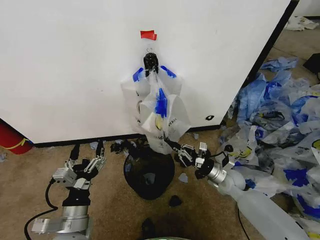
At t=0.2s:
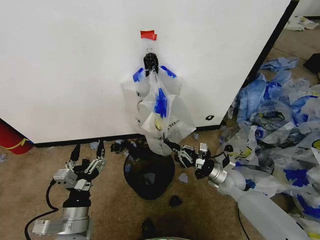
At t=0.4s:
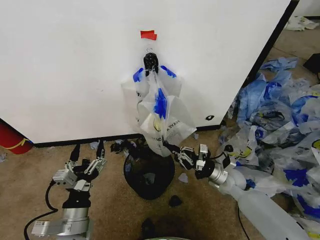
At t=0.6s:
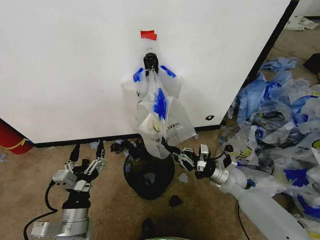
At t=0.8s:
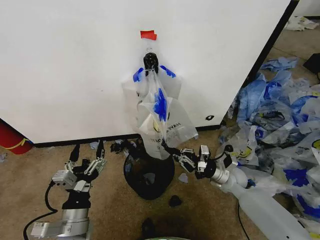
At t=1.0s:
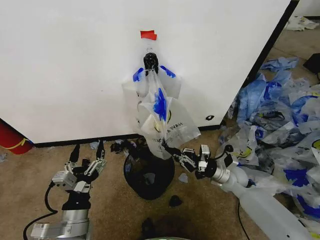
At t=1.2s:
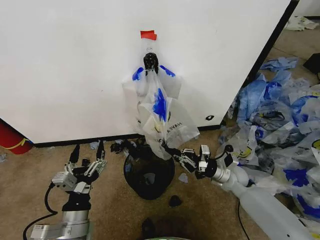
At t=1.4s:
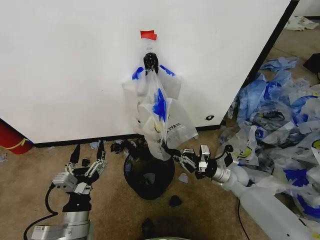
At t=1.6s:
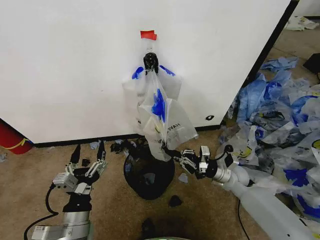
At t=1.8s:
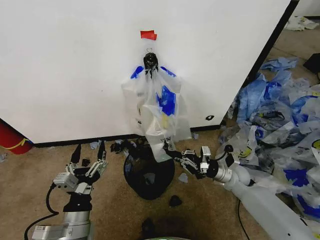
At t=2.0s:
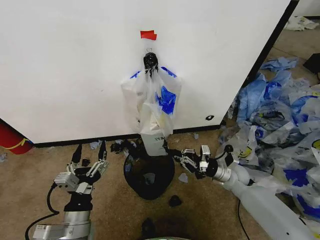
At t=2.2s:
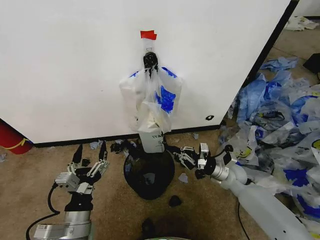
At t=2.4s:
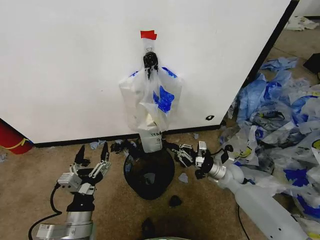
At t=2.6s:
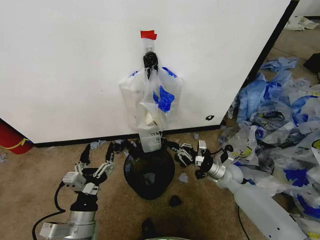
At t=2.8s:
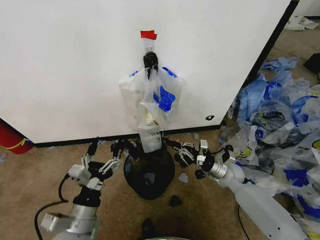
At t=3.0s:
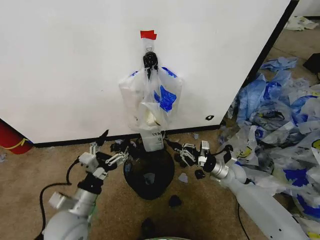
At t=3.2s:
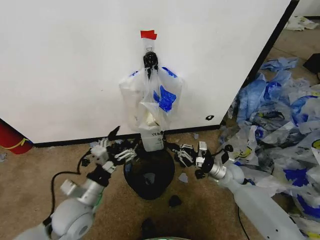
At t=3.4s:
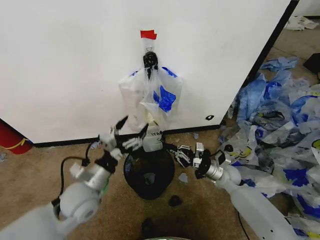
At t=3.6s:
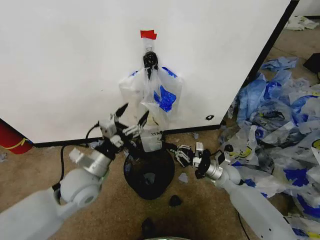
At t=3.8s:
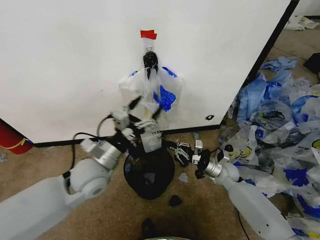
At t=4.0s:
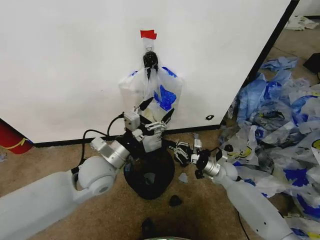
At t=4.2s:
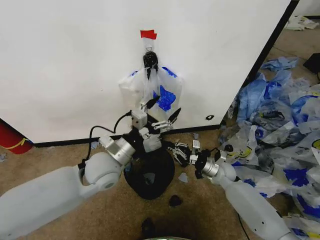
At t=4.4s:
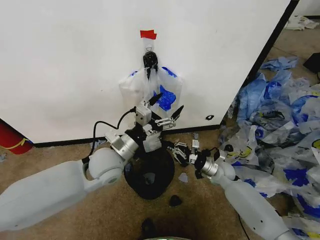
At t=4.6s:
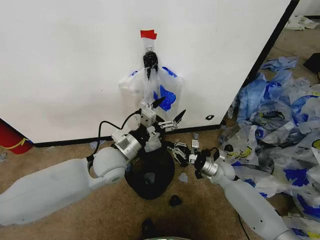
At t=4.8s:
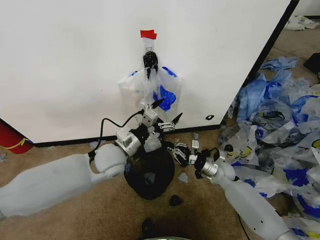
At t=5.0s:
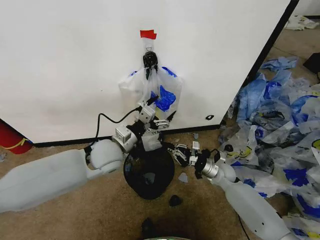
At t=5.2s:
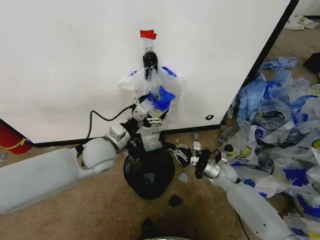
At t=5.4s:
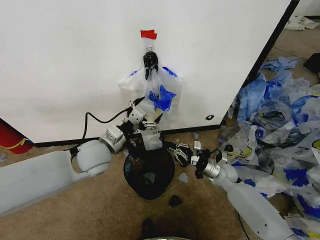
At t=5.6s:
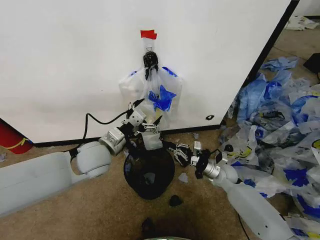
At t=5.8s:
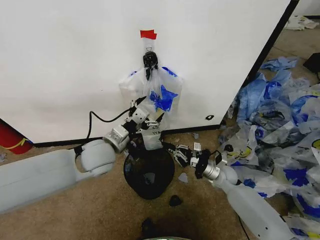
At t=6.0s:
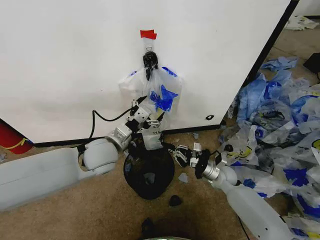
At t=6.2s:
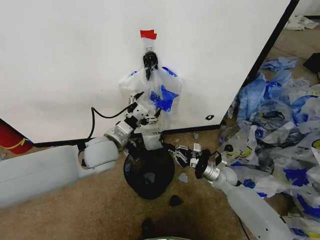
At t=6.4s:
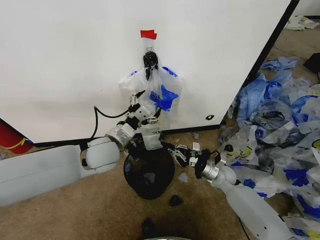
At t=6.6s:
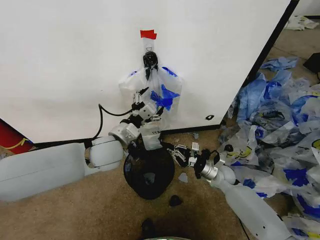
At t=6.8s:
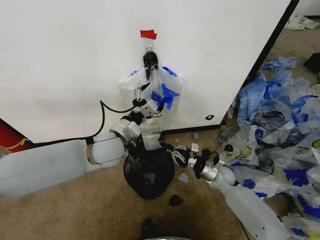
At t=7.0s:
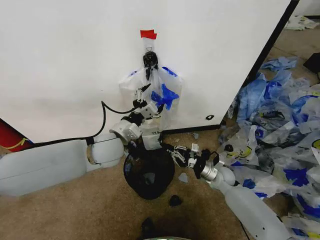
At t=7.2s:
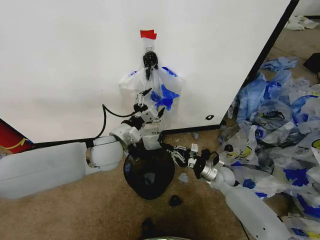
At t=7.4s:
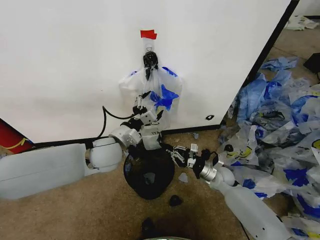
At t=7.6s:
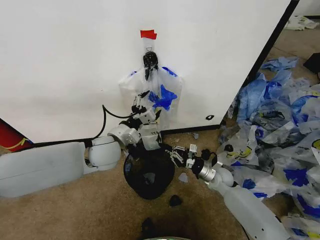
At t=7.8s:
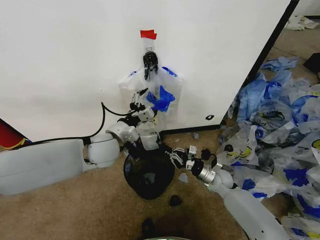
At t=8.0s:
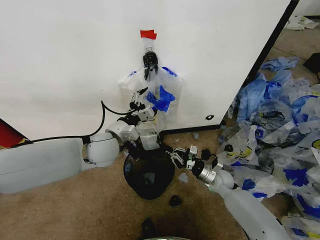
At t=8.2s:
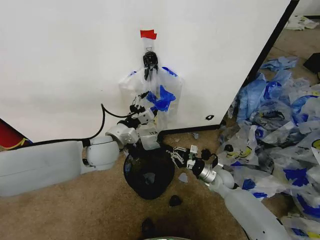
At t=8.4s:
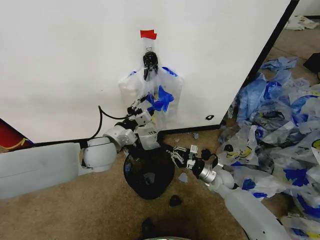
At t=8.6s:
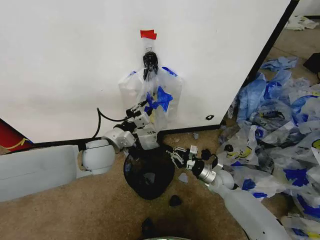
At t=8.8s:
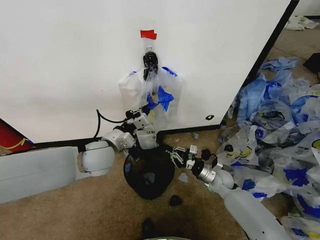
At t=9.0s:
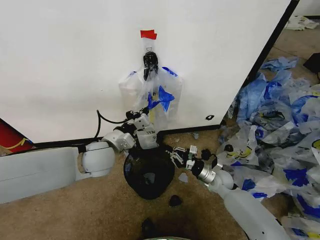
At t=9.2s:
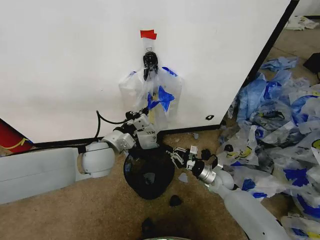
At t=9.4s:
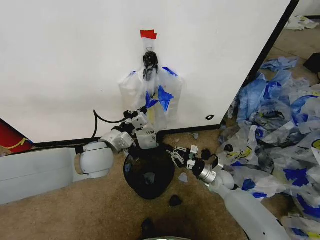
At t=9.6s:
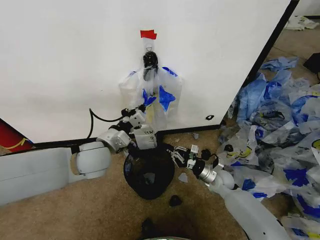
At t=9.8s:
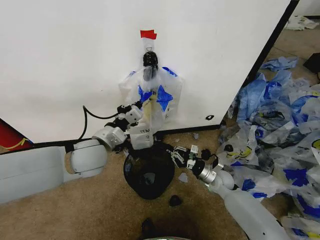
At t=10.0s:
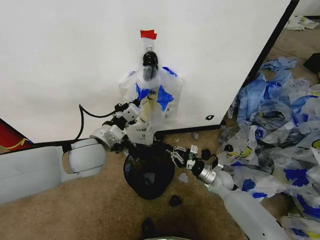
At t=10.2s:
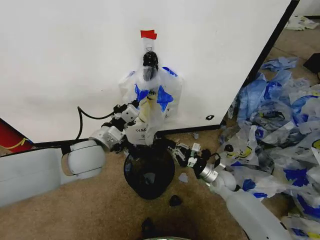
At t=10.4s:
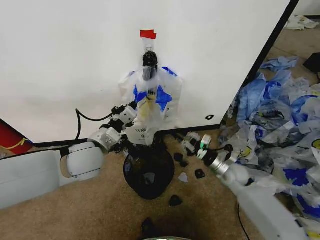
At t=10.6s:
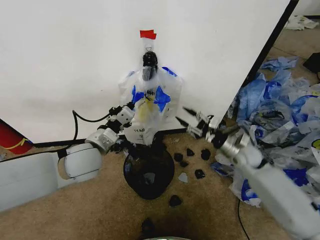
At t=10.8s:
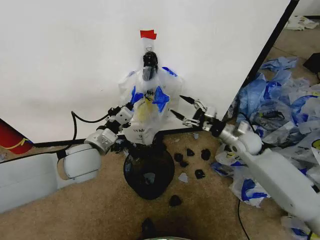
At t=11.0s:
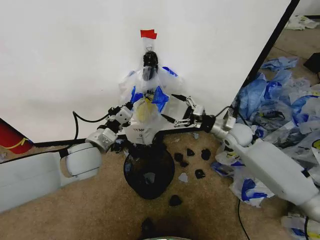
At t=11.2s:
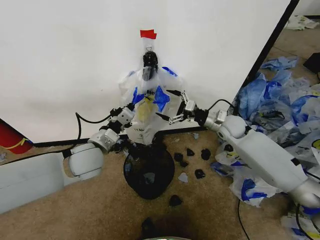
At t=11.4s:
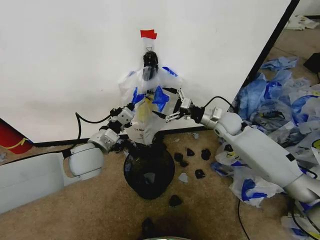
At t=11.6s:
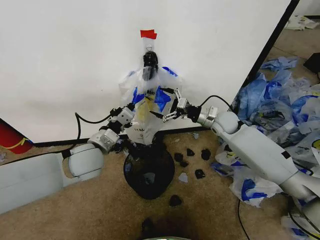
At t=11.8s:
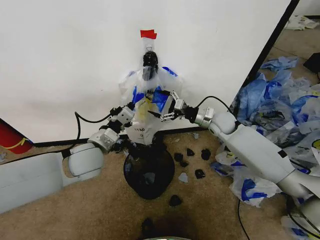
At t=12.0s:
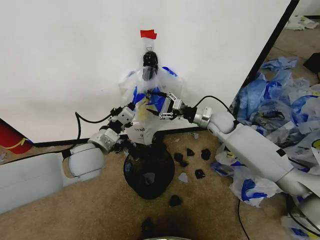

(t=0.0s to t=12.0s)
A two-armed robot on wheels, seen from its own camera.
Task of the whole recording: Pick up the garbage bag from the wall and place it over the trash bin.
t=0.0s - t=3.0s: The grippers make only small movements.
t=3.0s - t=4.4s: The left gripper shifts approximately 20 cm forward, upward and to the right.
t=7.6s - t=9.0s: The left gripper closes up.
t=9.0s - t=10.4s: The right gripper shifts about 5 cm upward.
t=10.4s - t=12.0s: The right gripper goes approximately 20 cm upward, forward and to the left, and opens its fingers.

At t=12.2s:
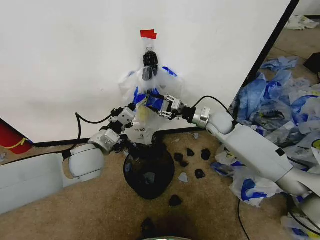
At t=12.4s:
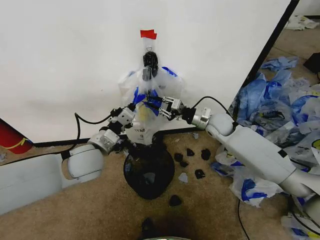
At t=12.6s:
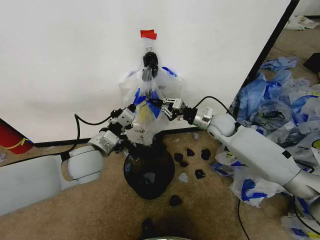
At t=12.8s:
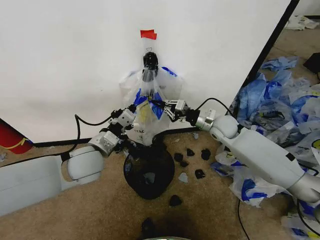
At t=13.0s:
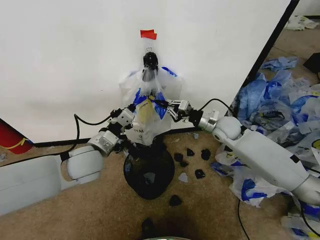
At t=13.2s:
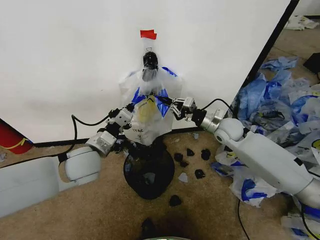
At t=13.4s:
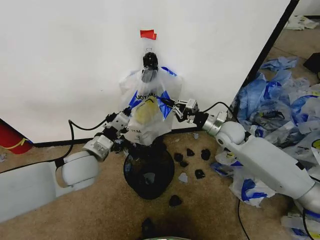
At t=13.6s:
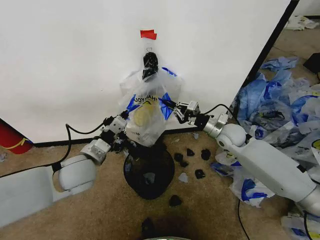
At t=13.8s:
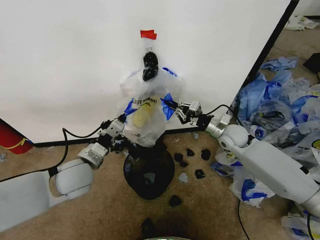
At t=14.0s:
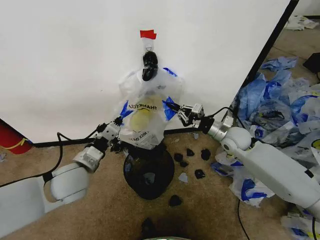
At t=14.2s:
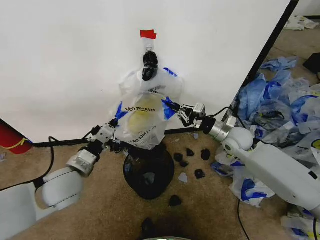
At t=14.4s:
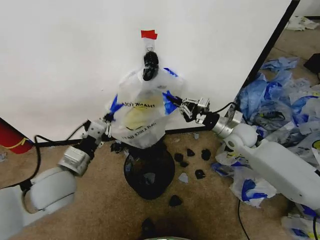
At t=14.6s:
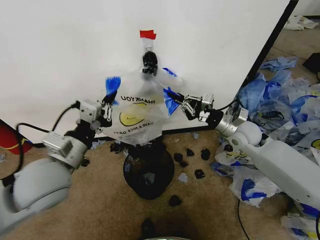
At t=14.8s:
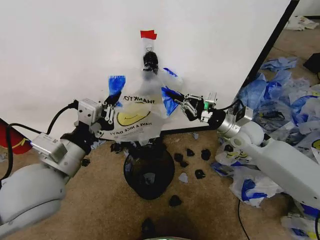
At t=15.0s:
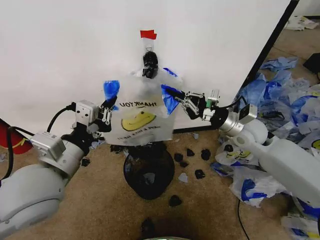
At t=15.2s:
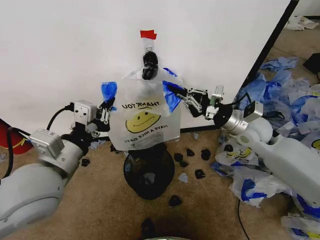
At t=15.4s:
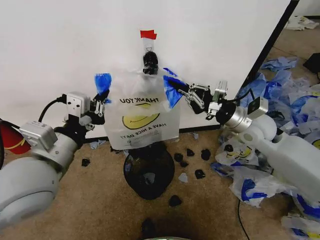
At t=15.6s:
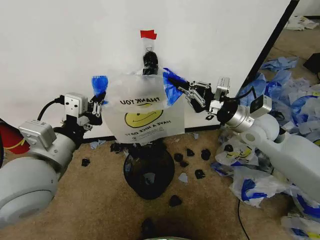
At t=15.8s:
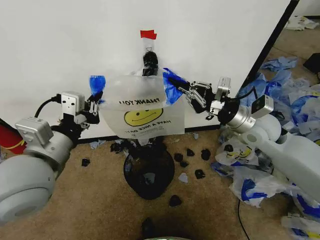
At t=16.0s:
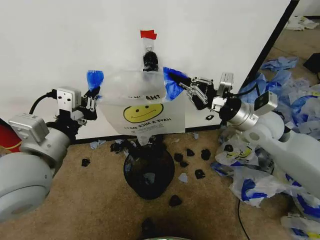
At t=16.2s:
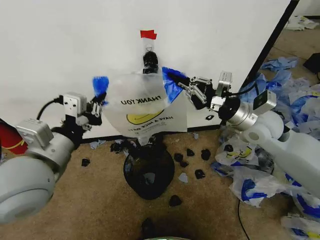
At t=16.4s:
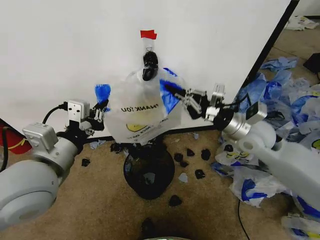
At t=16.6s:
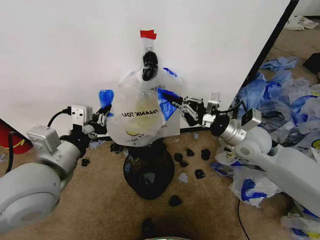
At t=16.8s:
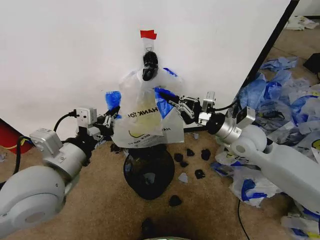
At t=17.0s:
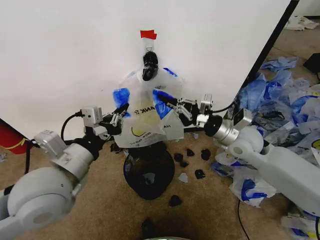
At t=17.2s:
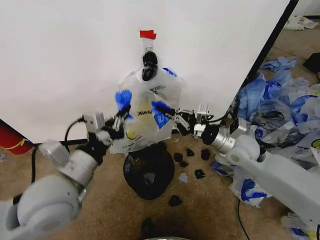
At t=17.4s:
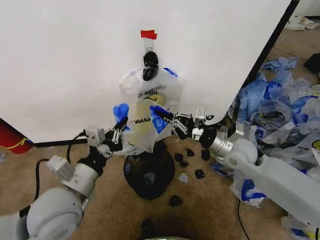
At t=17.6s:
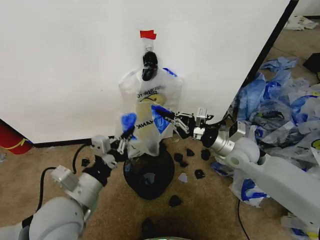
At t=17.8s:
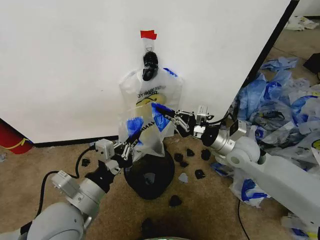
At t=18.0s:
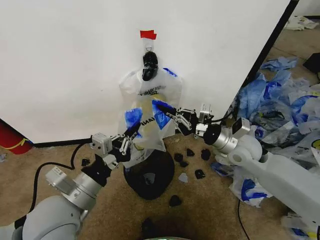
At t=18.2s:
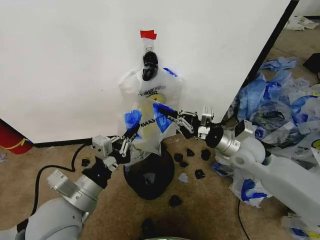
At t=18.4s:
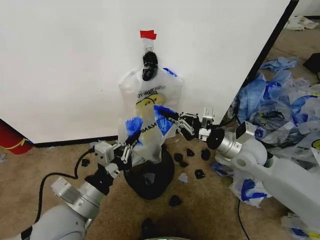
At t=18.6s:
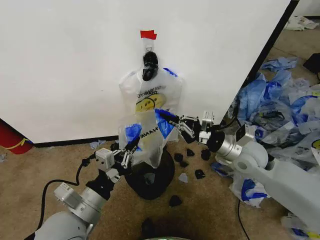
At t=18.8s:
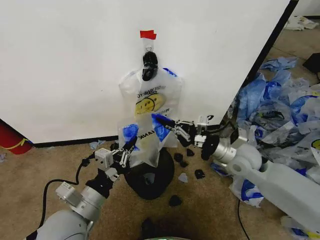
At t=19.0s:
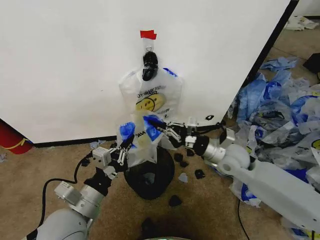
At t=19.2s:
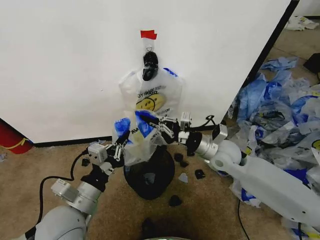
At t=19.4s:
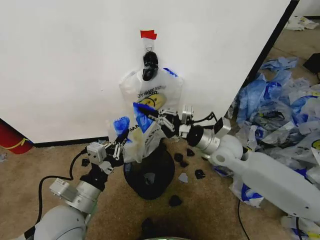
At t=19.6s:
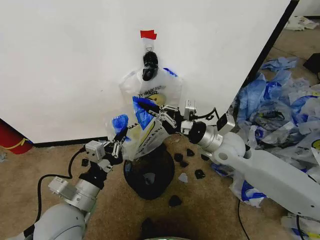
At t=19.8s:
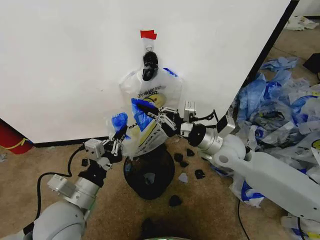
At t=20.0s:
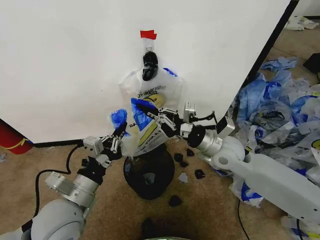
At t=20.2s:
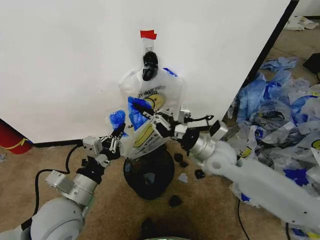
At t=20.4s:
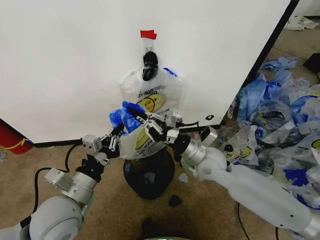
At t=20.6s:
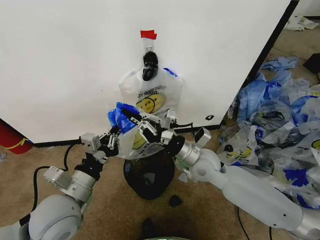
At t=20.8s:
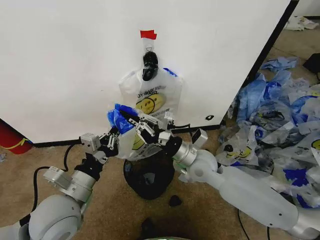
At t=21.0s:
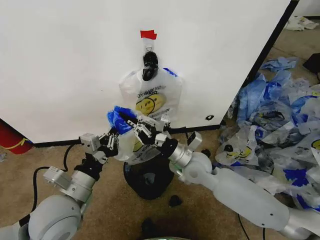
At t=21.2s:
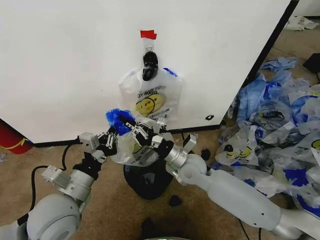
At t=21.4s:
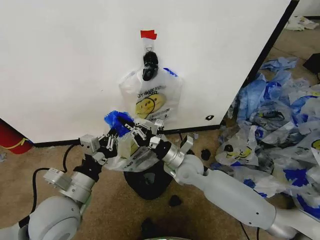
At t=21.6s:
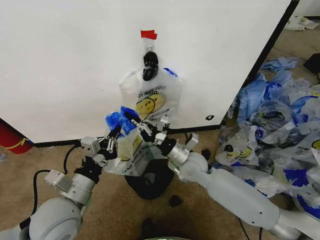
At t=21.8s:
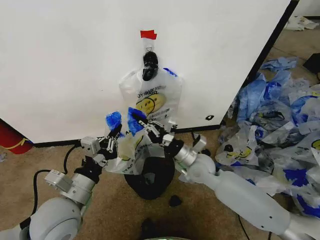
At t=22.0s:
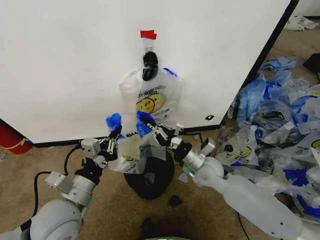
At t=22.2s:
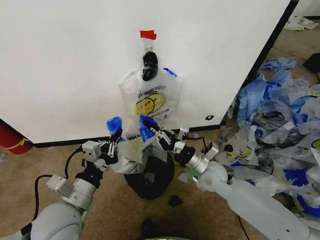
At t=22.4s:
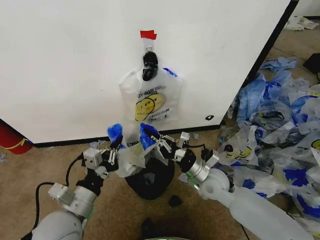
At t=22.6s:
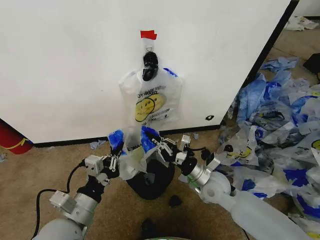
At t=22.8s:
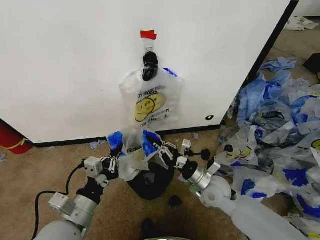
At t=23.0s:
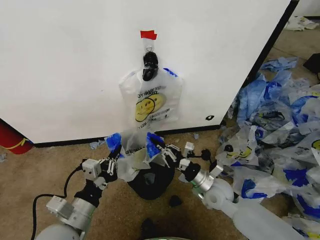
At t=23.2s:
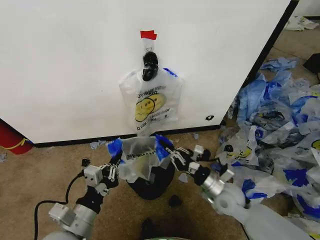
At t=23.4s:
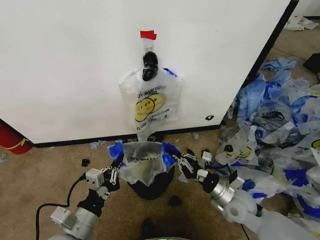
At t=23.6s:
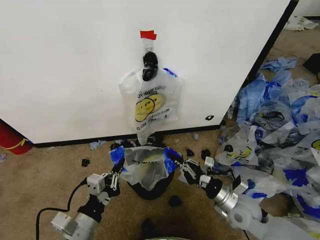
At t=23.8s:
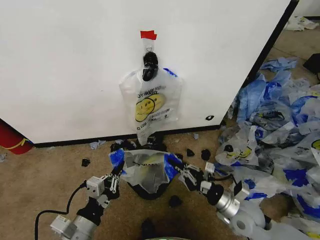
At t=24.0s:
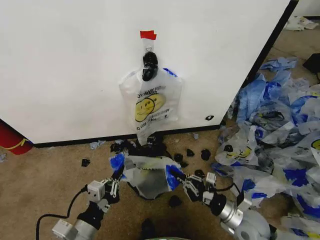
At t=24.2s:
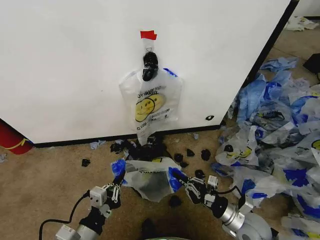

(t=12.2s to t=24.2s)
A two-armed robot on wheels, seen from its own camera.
Task of the whole recording: Pick up the garbage bag from the wall and place it over the trash bin.
t=12.2s - t=13.8s: The left gripper ends up about 5 cm from where it was. The right gripper shifts roughly 5 cm backward, and closes up.
t=13.8s - t=15.2s: Both grippers travel together upward and backward, about 15 cm.
t=15.2s - t=16.6s: The grippers move only a little.
t=16.6s - t=18.2s: The left gripper shifts some 10 cm downward.
t=18.2s - t=19.8s: The right gripper heads to the left, covering some 5 cm.
t=19.8s - t=21.2s: The right gripper travels to the left and downward by about 15 cm.
t=21.2s - t=22.6s: The left gripper changes place by about 5 cm. Meanwhile the right gripper goes some 10 cm to the right.
t=22.6s - t=24.2s: The left gripper moves downward and backward, some 10 cm. The right gripper heads backward, to the right and downward, covering approximately 15 cm.
